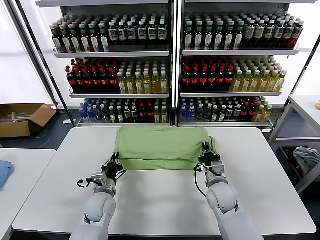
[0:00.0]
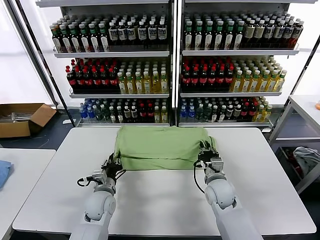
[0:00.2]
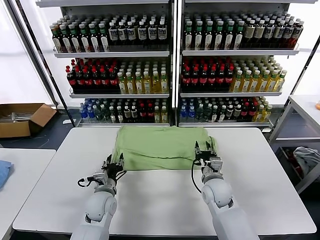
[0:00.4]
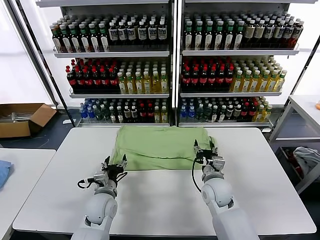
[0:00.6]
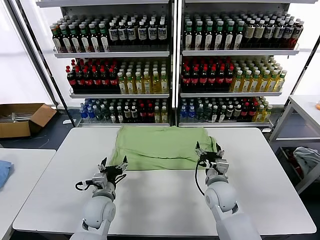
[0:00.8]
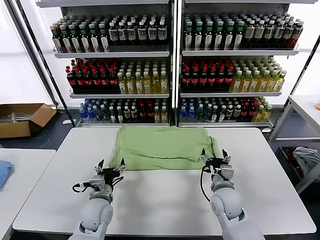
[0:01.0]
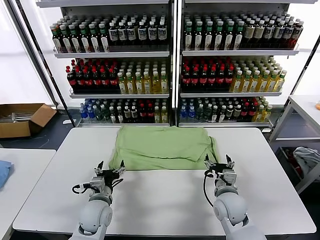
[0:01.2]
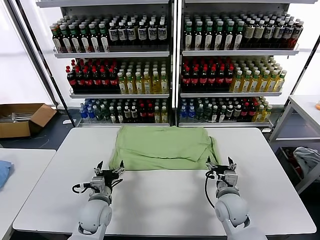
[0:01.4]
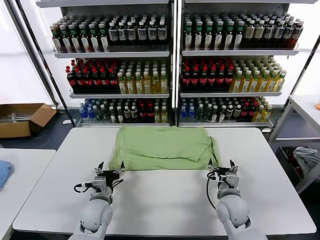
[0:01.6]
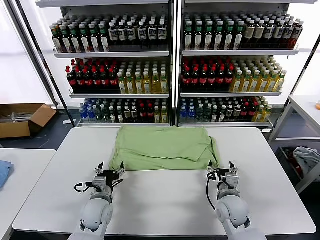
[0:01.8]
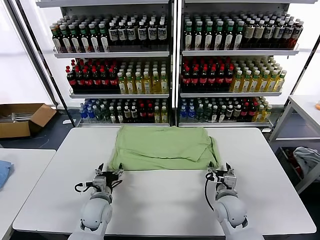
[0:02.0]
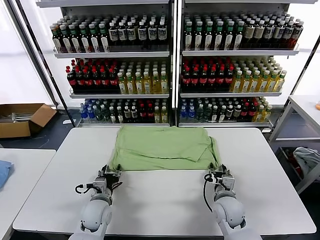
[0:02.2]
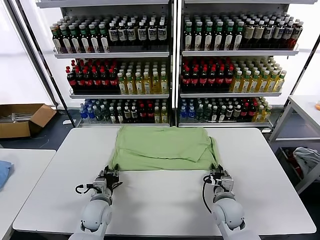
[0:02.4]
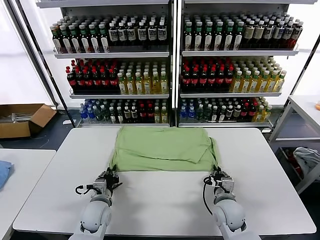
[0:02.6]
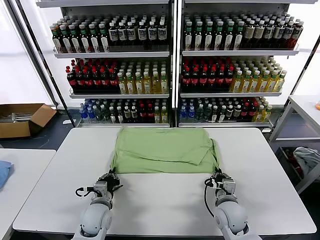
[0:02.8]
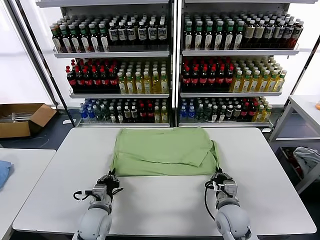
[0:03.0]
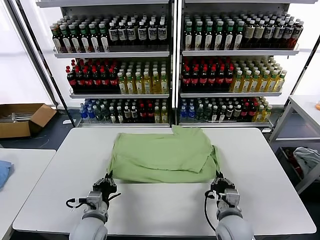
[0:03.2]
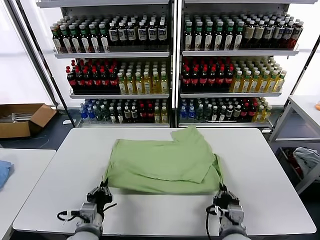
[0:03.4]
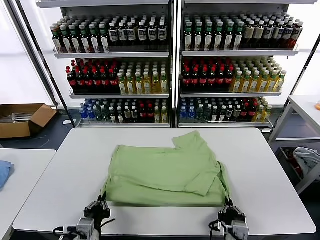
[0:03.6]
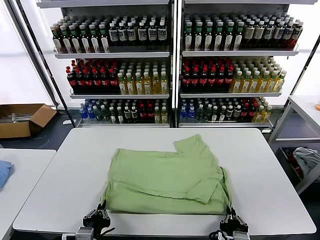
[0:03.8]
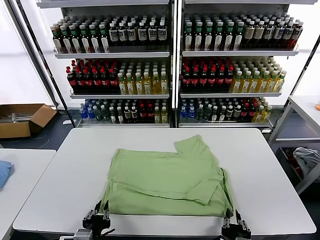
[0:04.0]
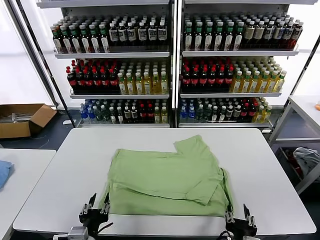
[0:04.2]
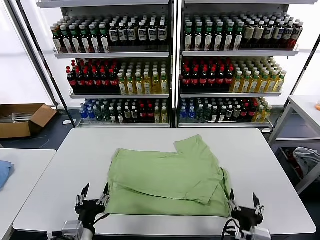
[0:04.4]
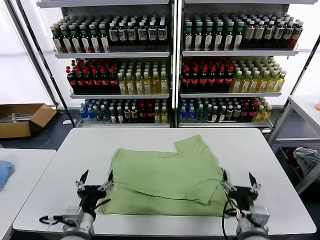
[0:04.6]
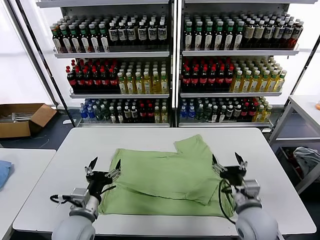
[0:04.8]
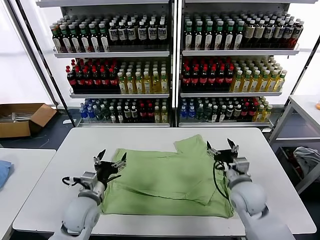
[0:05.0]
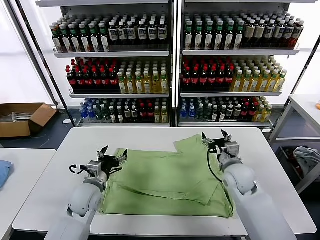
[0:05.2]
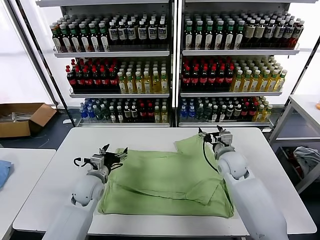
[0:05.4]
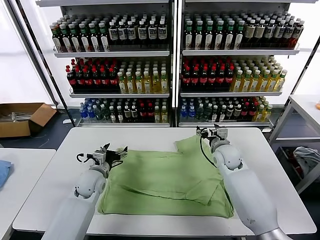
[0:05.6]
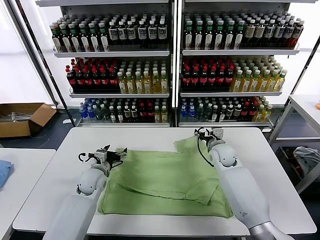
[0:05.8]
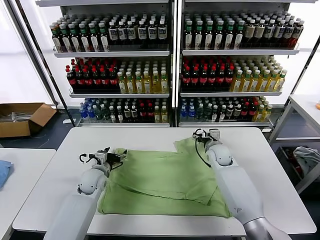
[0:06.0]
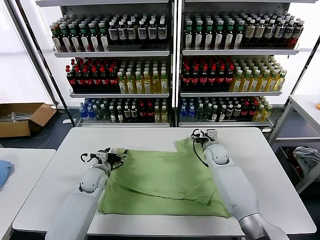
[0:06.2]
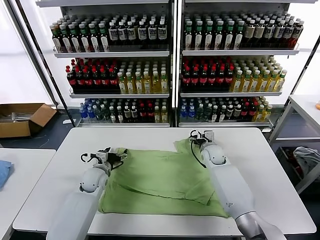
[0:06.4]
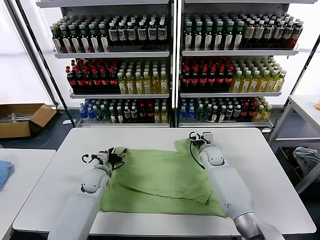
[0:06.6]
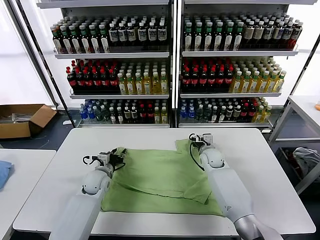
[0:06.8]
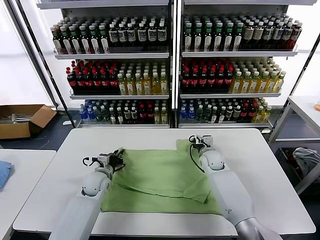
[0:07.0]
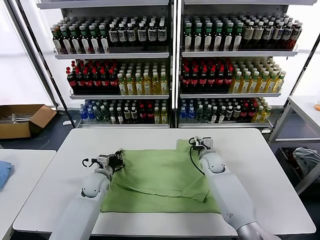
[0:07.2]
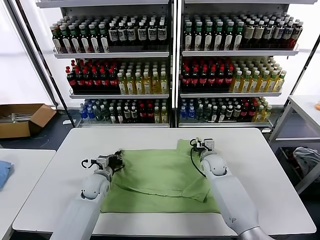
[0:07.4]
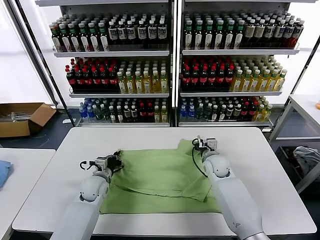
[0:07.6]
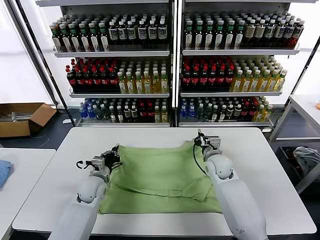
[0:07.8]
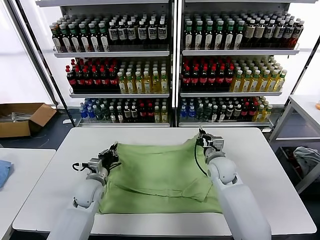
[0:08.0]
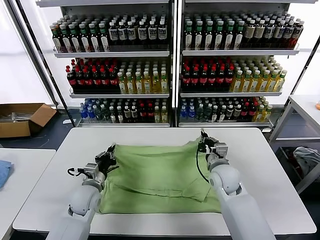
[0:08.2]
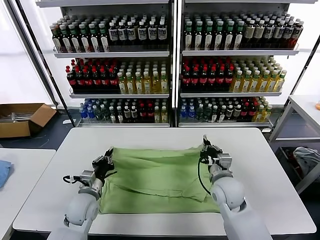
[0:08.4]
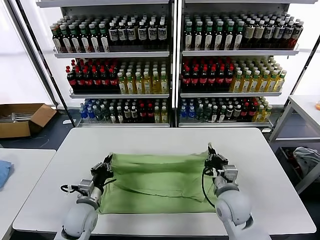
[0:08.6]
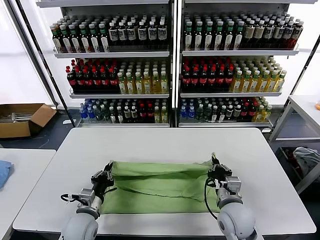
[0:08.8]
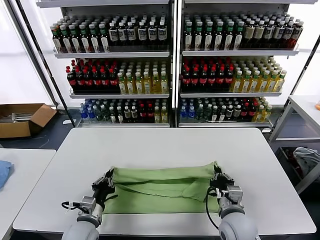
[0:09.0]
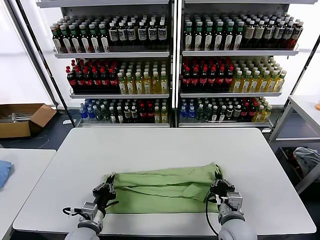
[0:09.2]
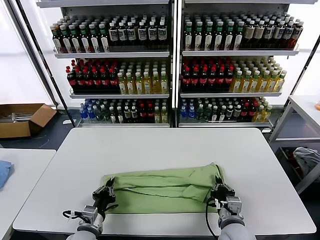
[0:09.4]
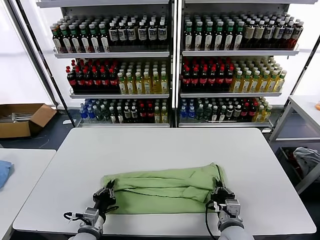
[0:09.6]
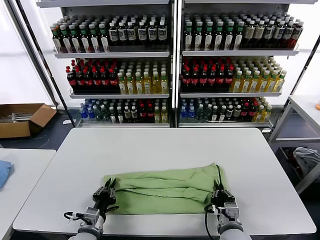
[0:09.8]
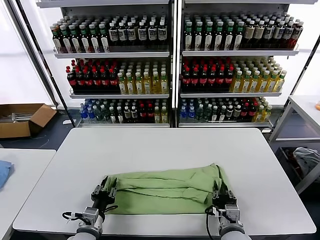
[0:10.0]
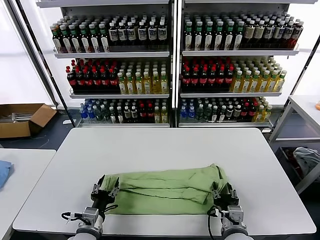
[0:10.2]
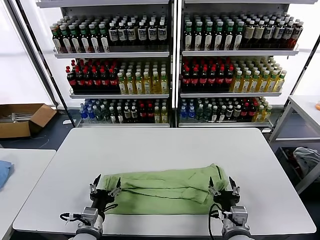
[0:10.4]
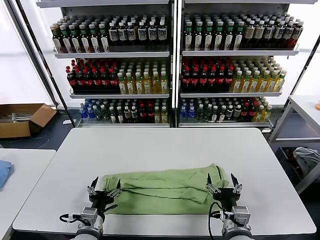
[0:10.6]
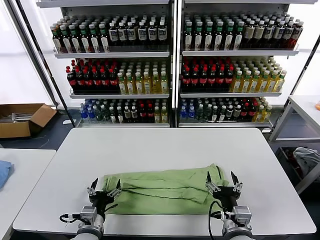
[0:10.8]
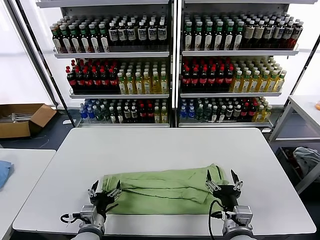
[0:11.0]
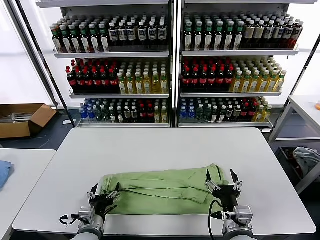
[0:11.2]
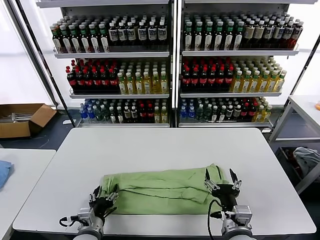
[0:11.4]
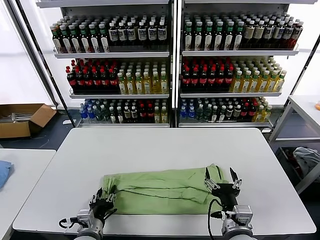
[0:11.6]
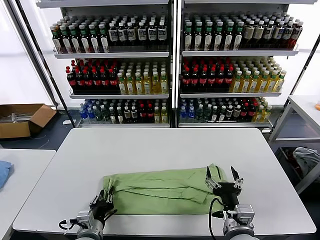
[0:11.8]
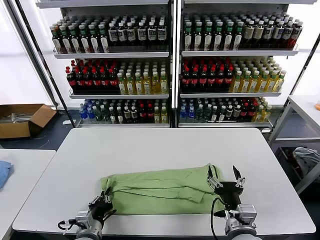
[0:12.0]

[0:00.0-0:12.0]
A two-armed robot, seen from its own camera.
Task of the whole recording: fold and organize the clothes.
Step, 0.8 to 4.0 s: Drag the clothes downward with both gripper.
Step, 4.2 to 7.2 s: use both grippers simultaneously to clamp the upper edge of the clothing fabric.
Step, 7.6 to 10.4 s: use both grippers to drag the upper edge of the fabric backward and fold it over the lower edge.
Step, 10.6 to 12.0 s: use the left gripper to clamp the left edge of the fabric.
0.0 to 1.6 s: The left gripper opens, while the right gripper shifts some 5 cm backward, and opens up.
1.6 to 3.0 s: The left gripper closes up; the right gripper goes approximately 5 cm backward, and closes its fingers.
3.0 to 4.4 s: Both grippers travel together backward and upward, some 15 cm. The right gripper opens its fingers, while the left gripper opens.
4.4 to 6.0 s: The two grippers go roughly 35 cm forward.
6.0 to 7.6 s: The left gripper closes its fingers, while the right gripper goes roughly 5 cm backward, and closes.
7.6 to 9.0 s: Both grippers move backward, some 20 cm.
9.0 to 10.4 s: The left gripper opens, while the right gripper goes roughly 5 cm backward, and opens its fingers.
10.4 to 12.0 s: The left gripper closes up.

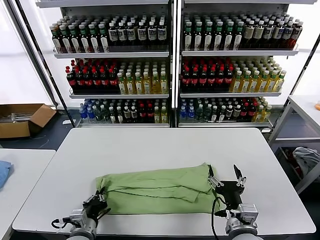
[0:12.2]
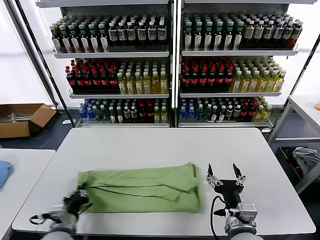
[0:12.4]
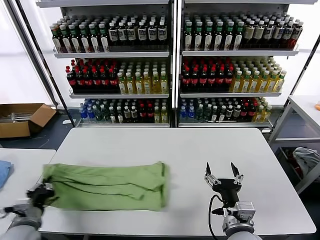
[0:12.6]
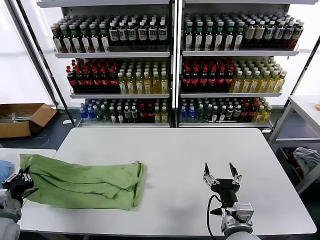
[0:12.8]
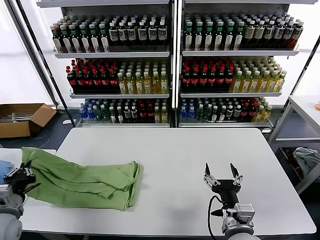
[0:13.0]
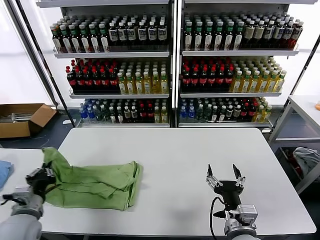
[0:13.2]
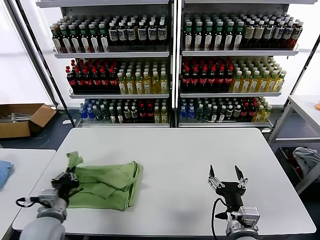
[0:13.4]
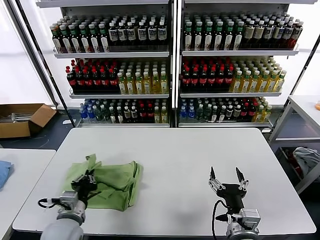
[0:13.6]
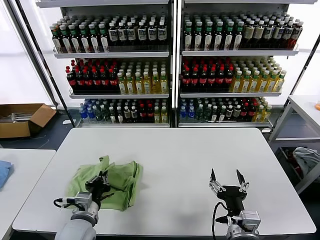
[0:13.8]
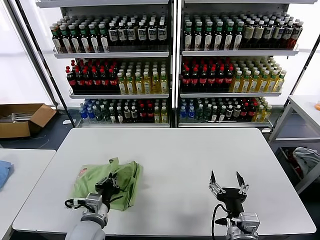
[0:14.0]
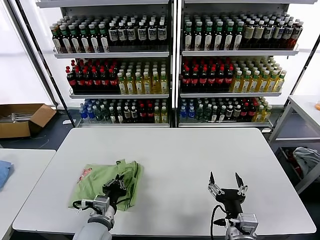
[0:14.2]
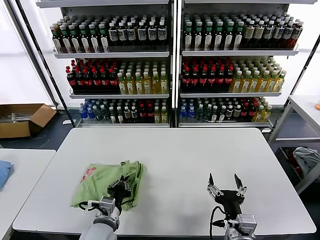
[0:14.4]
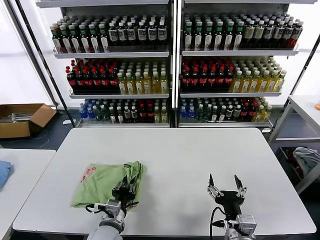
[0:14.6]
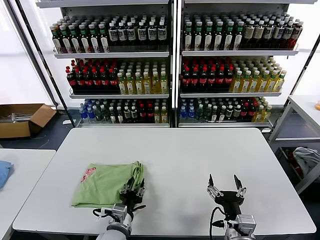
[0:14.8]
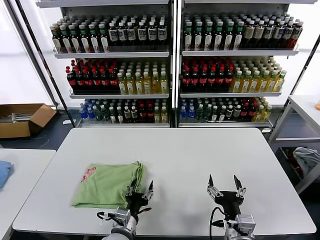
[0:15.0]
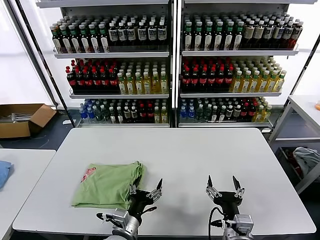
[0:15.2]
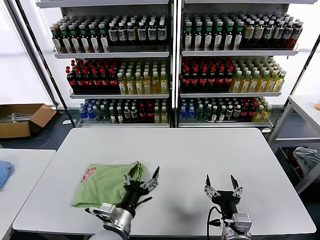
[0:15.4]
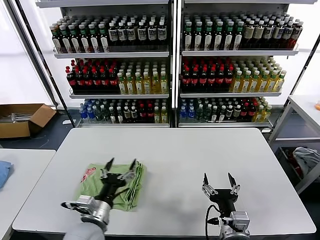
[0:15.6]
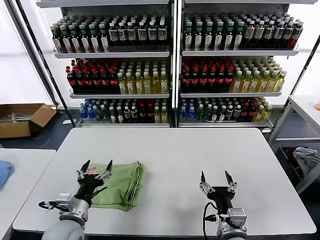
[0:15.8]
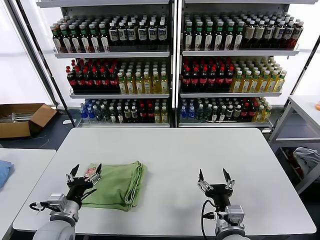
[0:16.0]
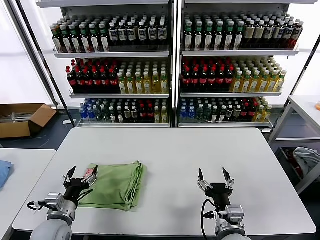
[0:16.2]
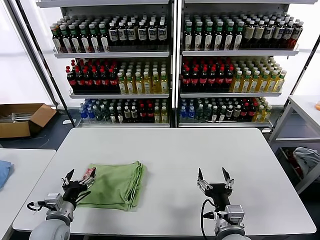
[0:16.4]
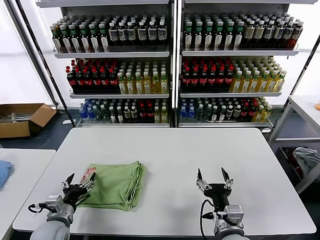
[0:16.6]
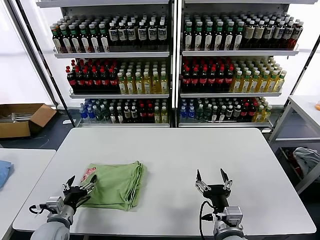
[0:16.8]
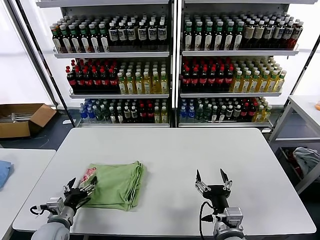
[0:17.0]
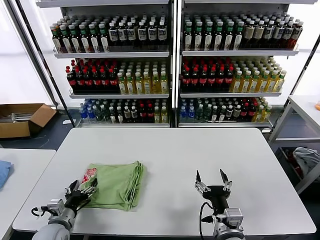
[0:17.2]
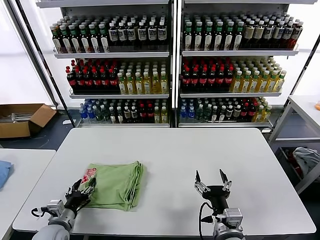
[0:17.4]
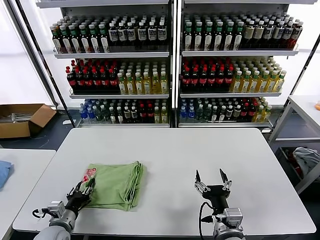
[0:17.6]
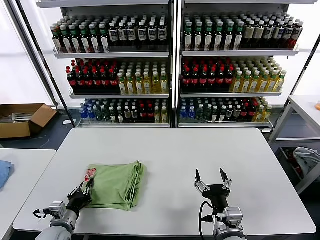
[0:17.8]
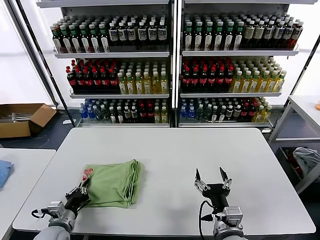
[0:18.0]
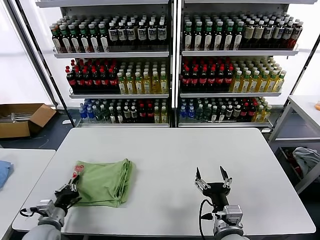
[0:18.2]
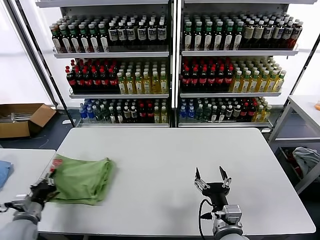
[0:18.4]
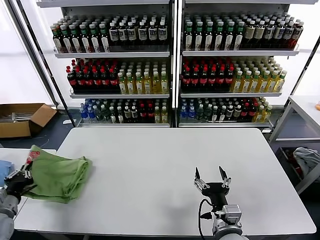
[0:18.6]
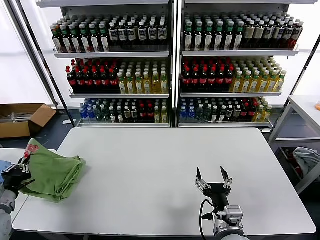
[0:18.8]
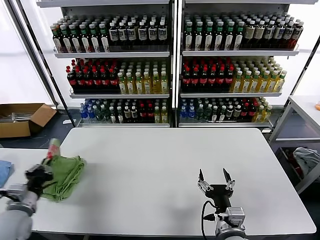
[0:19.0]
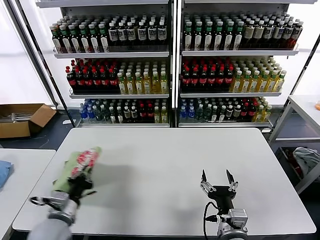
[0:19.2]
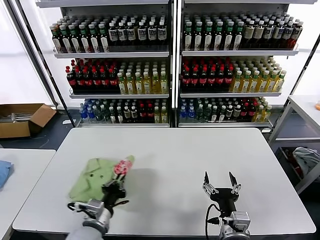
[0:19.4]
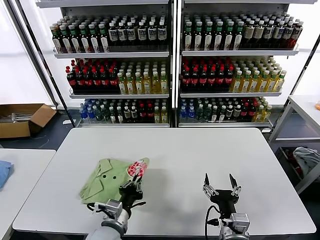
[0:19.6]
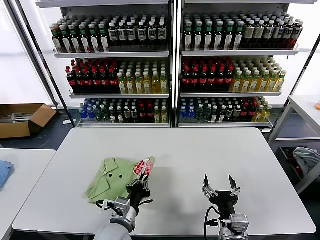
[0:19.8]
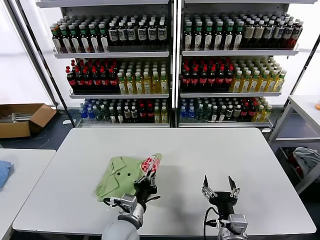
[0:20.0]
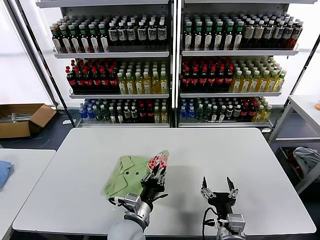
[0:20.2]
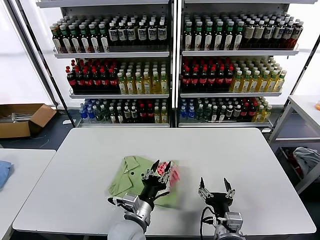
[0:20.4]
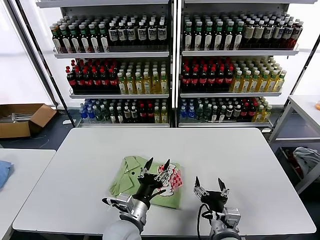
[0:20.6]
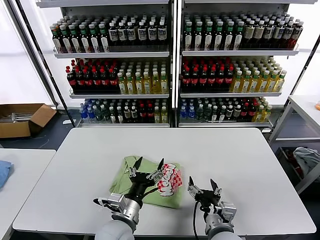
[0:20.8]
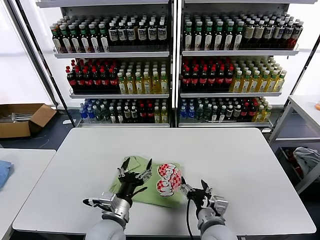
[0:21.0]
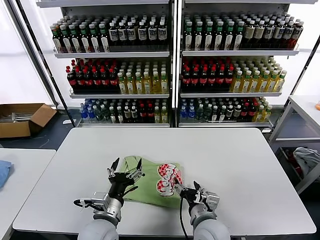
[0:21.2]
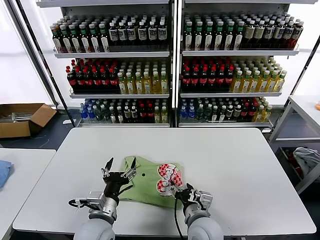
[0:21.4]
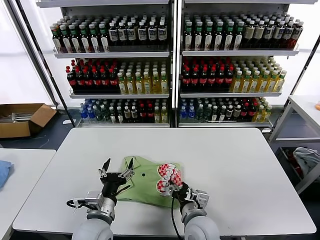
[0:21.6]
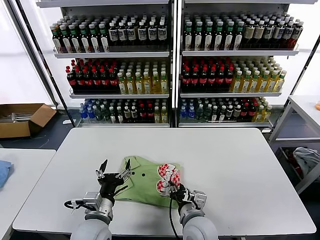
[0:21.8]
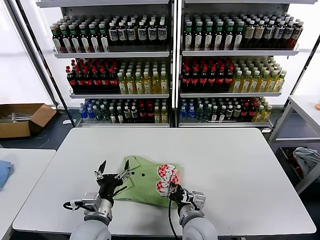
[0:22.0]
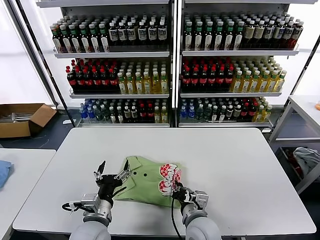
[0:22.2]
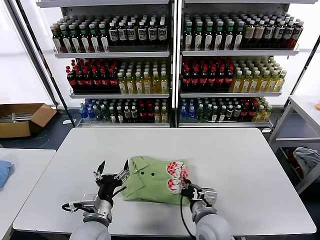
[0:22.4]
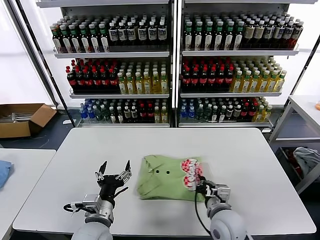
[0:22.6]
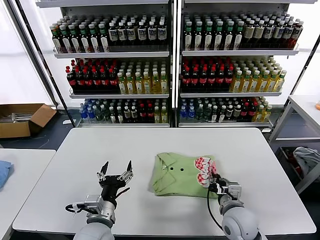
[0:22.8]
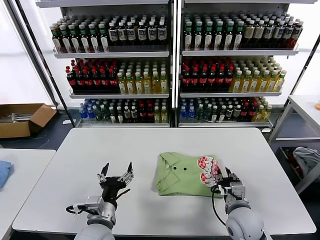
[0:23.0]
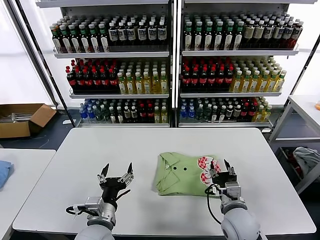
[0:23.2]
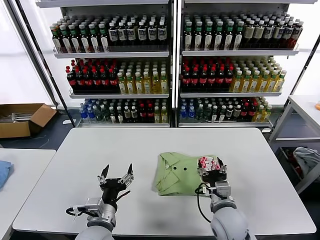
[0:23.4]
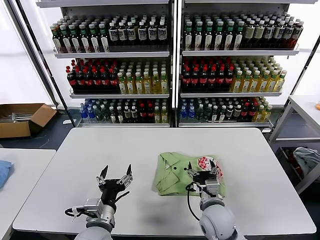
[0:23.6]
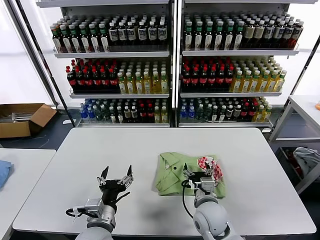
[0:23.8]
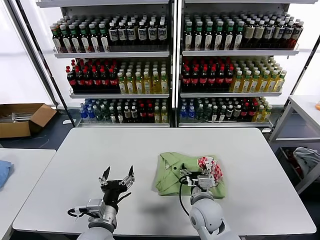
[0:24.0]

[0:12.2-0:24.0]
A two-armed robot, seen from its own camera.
Task of the whole recording: fold and organize the clothes.
Step, 12.2 to 15.0 s: use the left gripper to drag the left edge of the fabric to the left and folds it over the right edge.
Step, 15.2 to 20.4 s: Flip the folded clothes over with left gripper.
12.2 to 13.6 s: The left gripper travels upward by roughly 5 cm, and moves about 20 cm to the left and comes back.
13.6 to 15.2 s: The left gripper shifts some 15 cm to the right, and opens.
15.2 to 16.6 s: The left gripper shifts some 20 cm to the left.
16.6 to 18.2 s: The left gripper closes.
18.2 to 19.6 s: The left gripper moves to the right, approximately 20 cm.
19.6 to 21.0 s: The left gripper opens, while the right gripper ends up about 5 cm from where it was.
21.0 to 22.6 s: The right gripper moves about 5 cm, and closes up.
22.6 to 24.0 s: The right gripper changes place by about 5 cm, and opens up.
